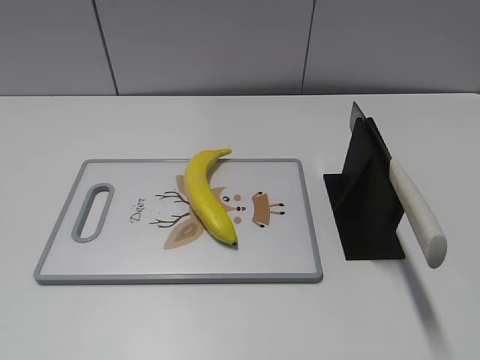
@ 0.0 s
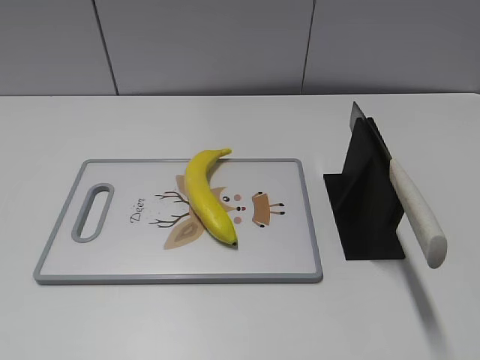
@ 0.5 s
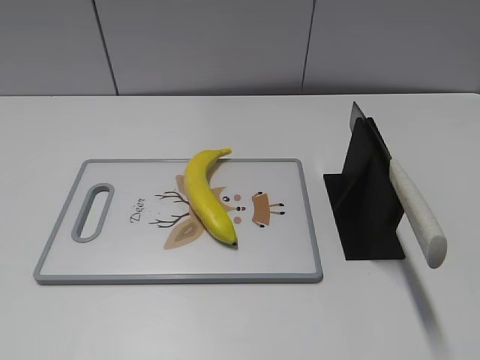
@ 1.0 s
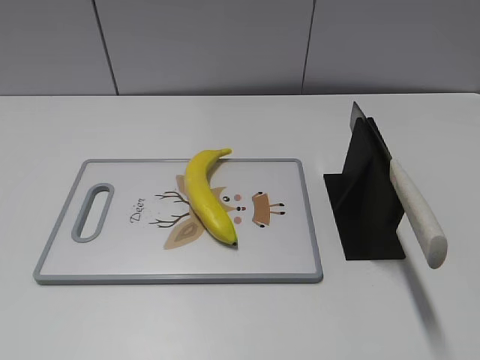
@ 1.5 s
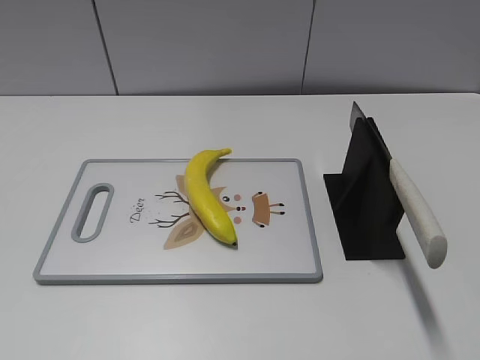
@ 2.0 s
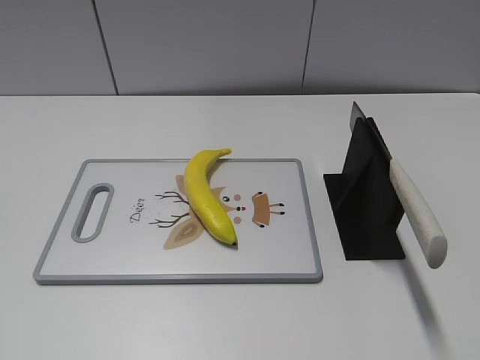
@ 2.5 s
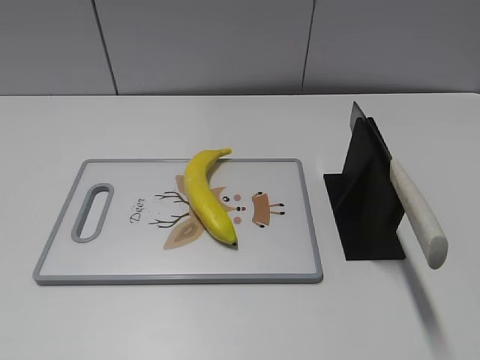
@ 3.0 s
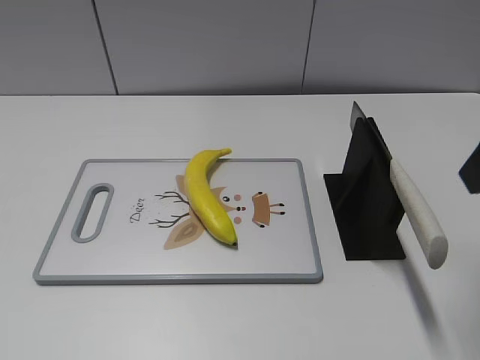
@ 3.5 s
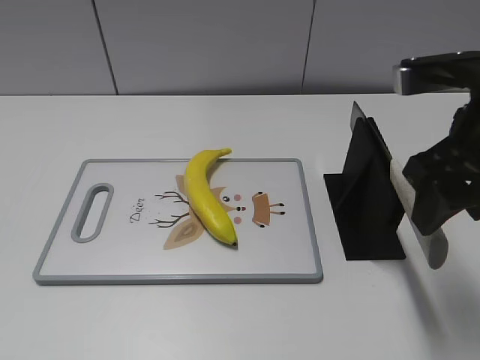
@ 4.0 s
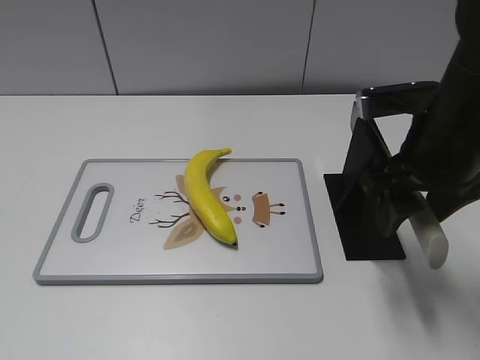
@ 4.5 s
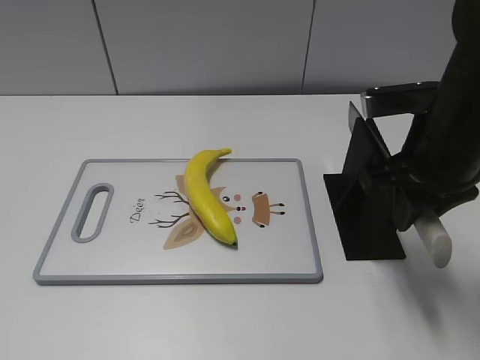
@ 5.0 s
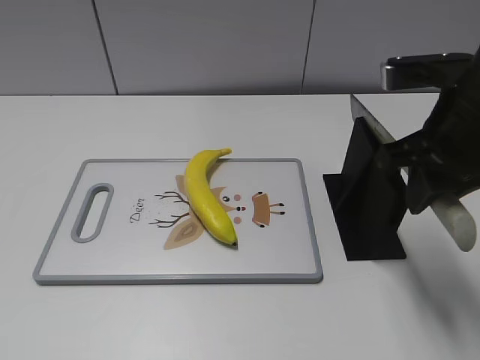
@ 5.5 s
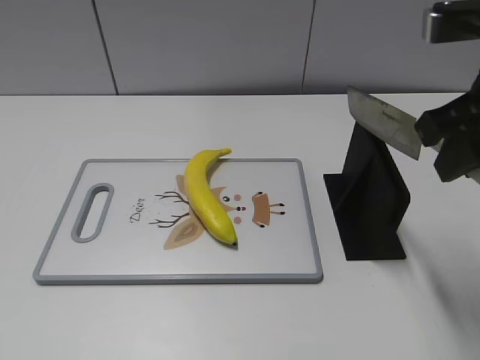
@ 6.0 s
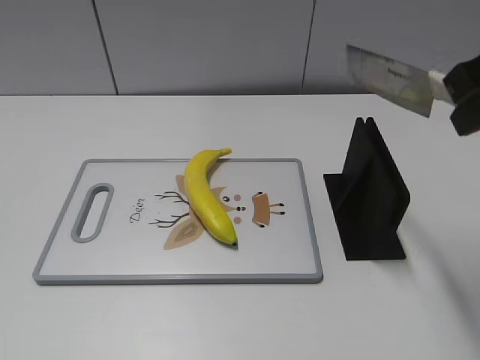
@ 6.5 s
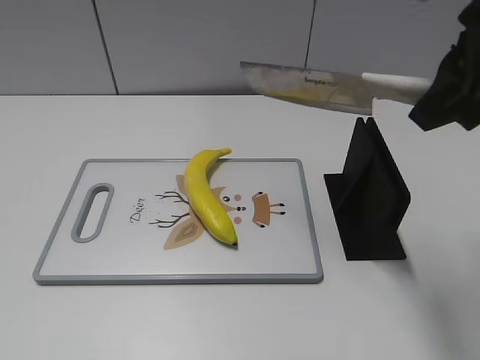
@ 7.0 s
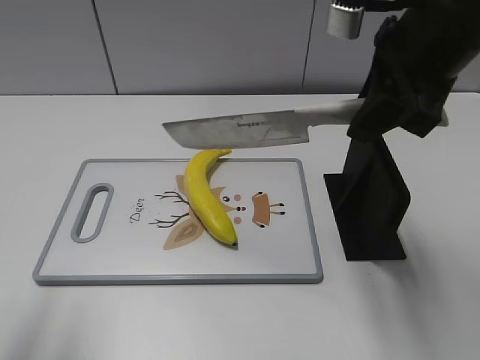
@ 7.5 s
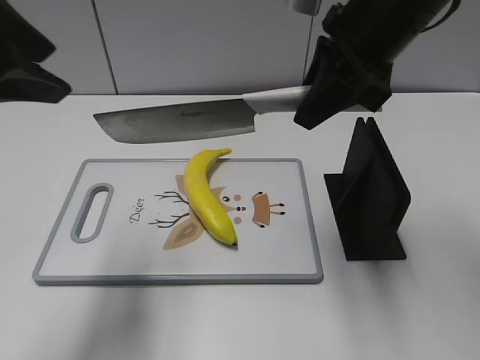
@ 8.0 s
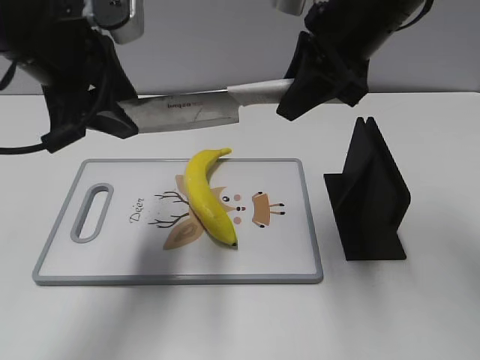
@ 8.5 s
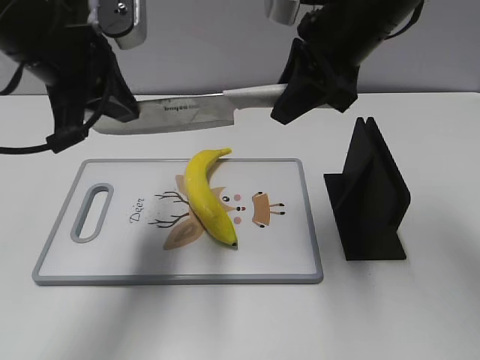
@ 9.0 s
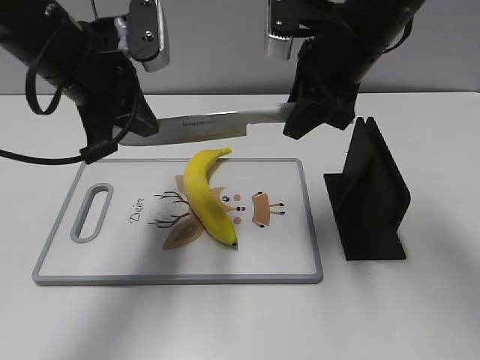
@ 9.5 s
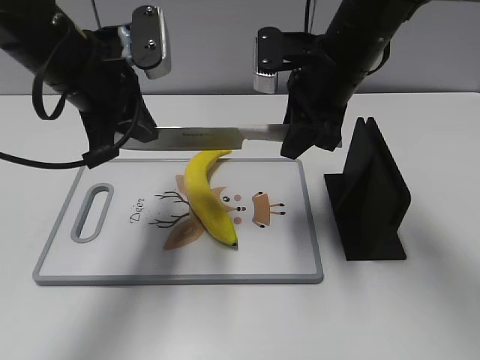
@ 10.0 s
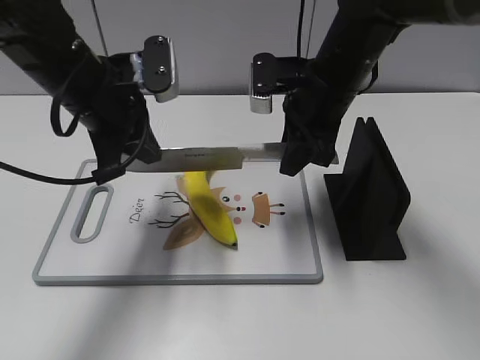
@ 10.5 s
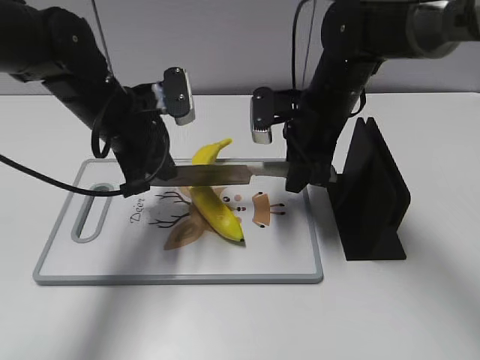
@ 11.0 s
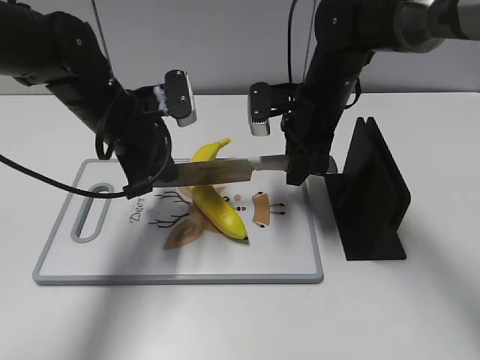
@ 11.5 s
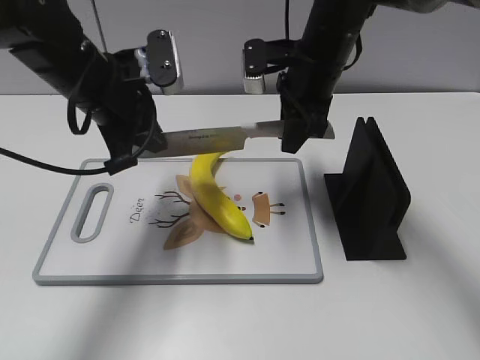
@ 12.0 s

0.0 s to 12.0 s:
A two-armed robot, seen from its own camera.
Task of the whole recording: cut plastic banana.
Step, 0.0 to 6.0 s: Grab the knife handle with your right hand.
Step, 6.5 to 11.5 s: Lift the knife with your right hand.
2.0 to 4.0 s: The right gripper moves forward and to the left, some 25 cm.
4.0 to 6.0 s: The right gripper closes.
6.0 to 8.0 s: The right gripper moves forward and to the left, roughly 10 cm, while the left gripper is displaced forward and to the right by about 25 cm.
8.0 to 10.0 s: The right gripper travels downward by approximately 10 cm, while the left gripper moves downward, forward and to the right, some 15 cm, and closes its fingers.
10.0 to 12.0 s: The right gripper travels downward and back again, some 10 cm each way.

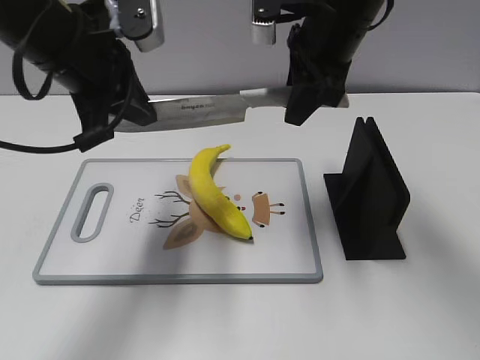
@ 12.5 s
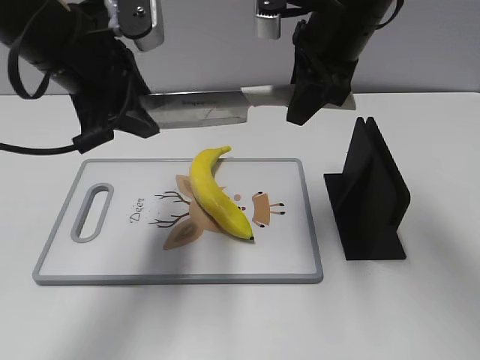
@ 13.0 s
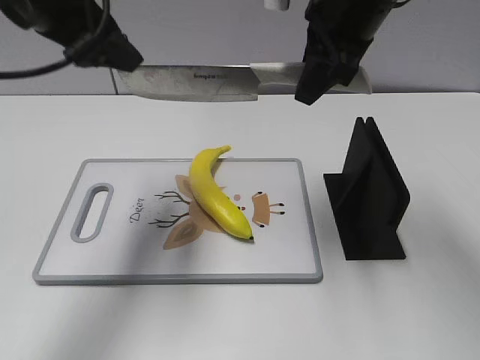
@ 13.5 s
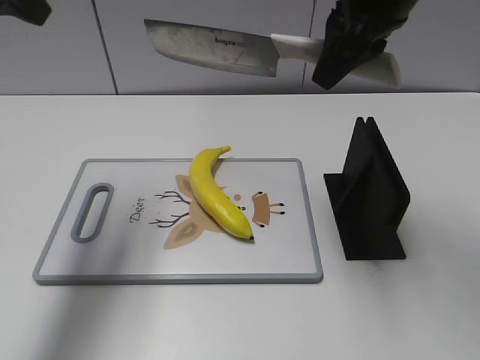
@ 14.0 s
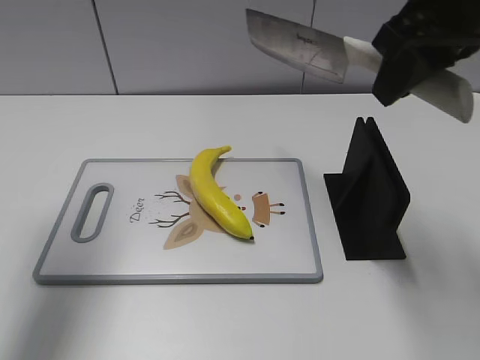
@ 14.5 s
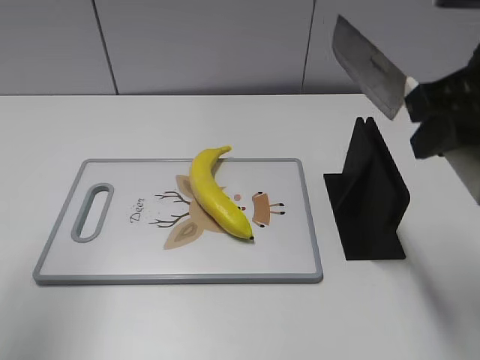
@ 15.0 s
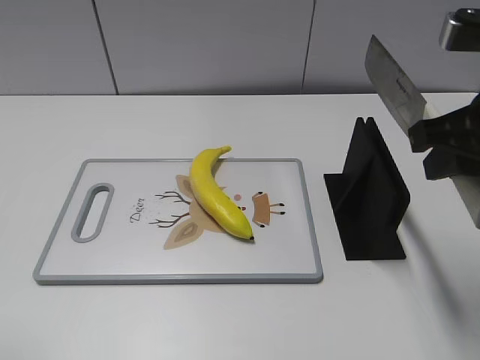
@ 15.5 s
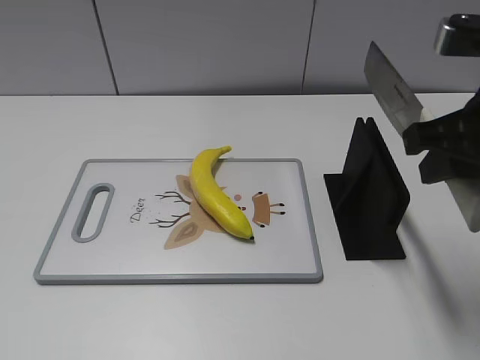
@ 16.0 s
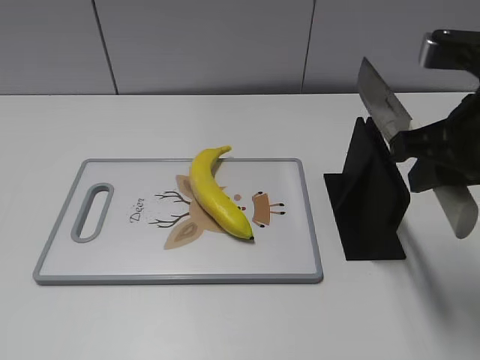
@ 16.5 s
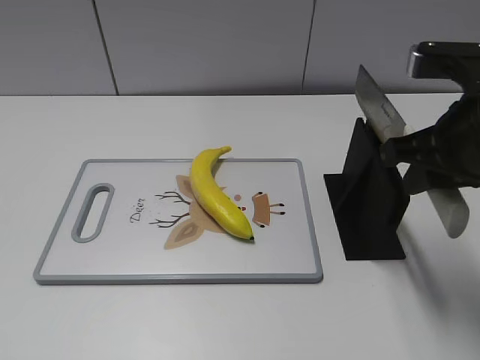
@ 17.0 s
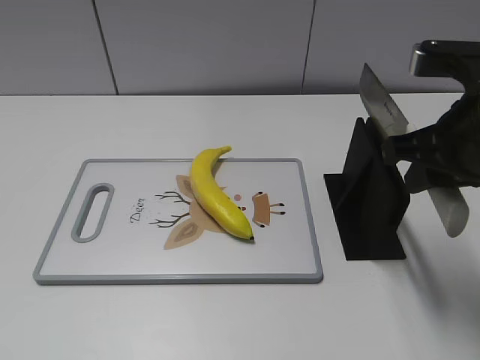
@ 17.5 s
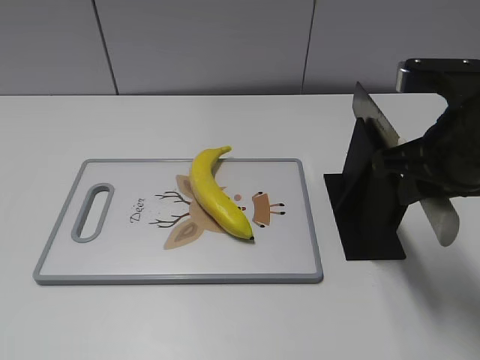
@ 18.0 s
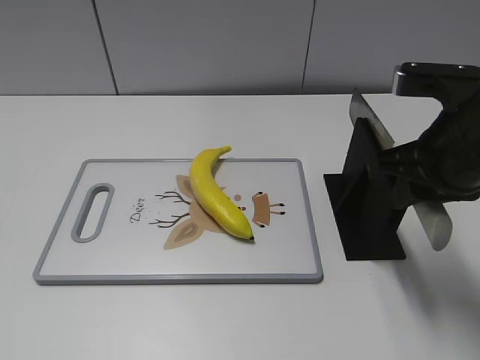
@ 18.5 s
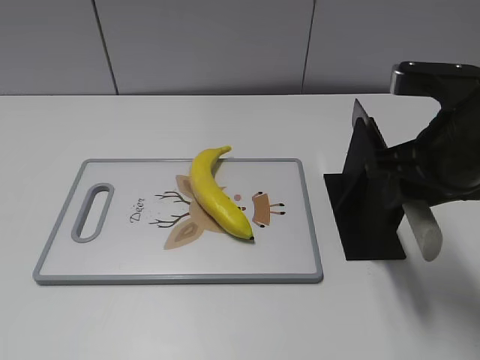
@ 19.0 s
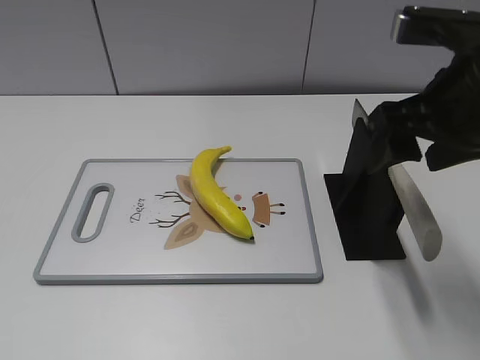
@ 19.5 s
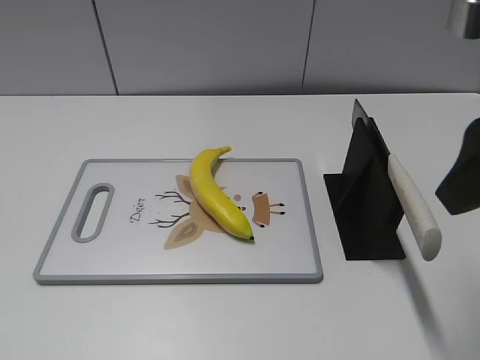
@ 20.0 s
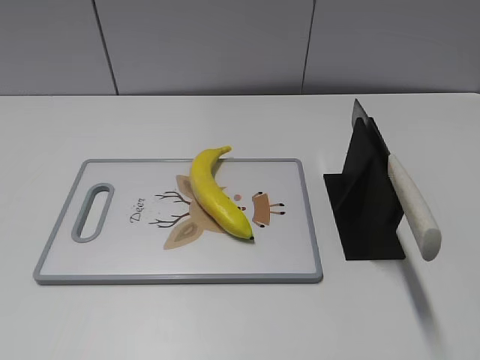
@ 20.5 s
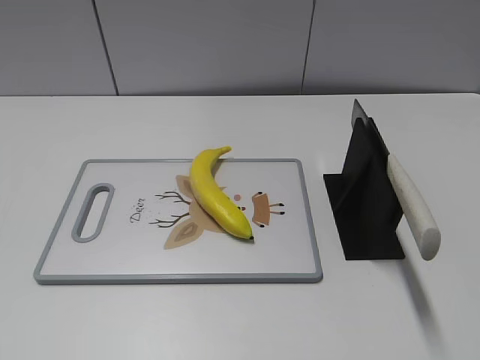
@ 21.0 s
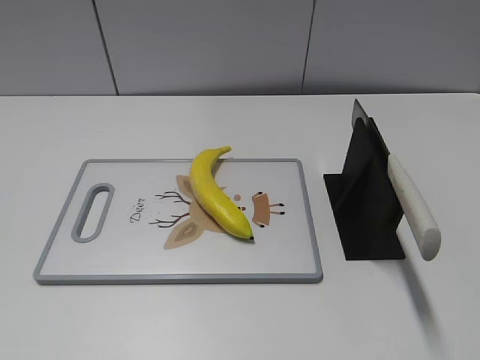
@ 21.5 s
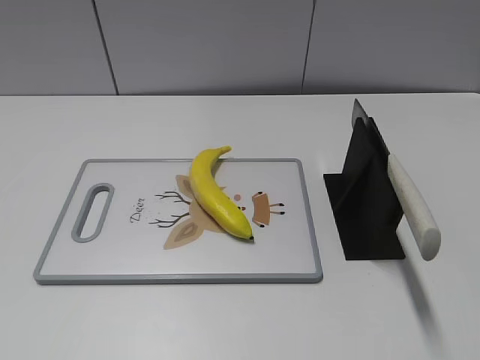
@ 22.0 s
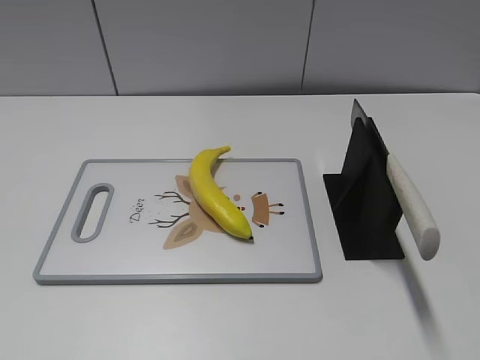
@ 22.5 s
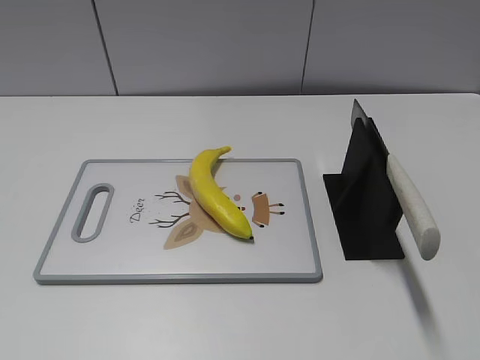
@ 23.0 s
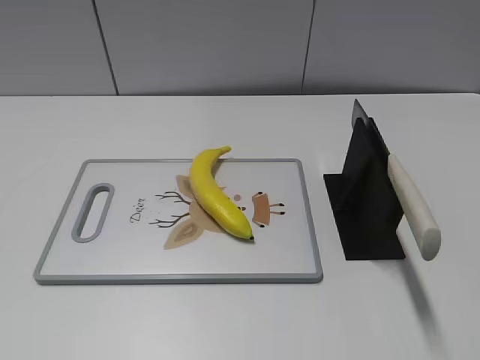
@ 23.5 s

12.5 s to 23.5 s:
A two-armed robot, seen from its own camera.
Task of the whole recording: cut plastic banana.
Step, 12.5 to 14.0 s: Cut the banana with your right hand.
Step, 14.5 to 15.5 s: Lift the knife with your right hand.
Step, 16.5 to 23.5 s: Place the knife on the storage rack with your right hand.
12.5 to 14.5 s: The right gripper heads backward, upward and to the right, covering some 15 cm; the left gripper moves to the left and upward, some 15 cm, and opens up.
14.5 to 16.0 s: The right gripper is displaced downward and backward by some 10 cm. The left gripper shifts about 25 cm backward.
16.0 to 18.0 s: The grippers move only a little.
18.0 to 20.0 s: The right gripper moves upward and backward, some 10 cm, and opens its fingers.
20.0 to 21.5 s: The right gripper heads backward and to the right, covering roughly 20 cm.
